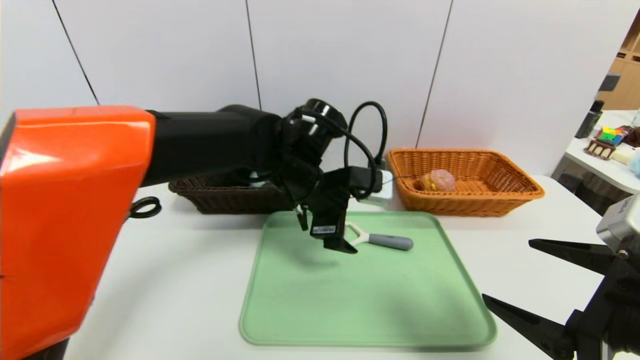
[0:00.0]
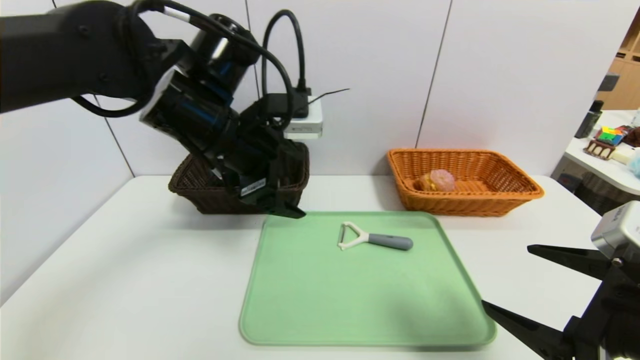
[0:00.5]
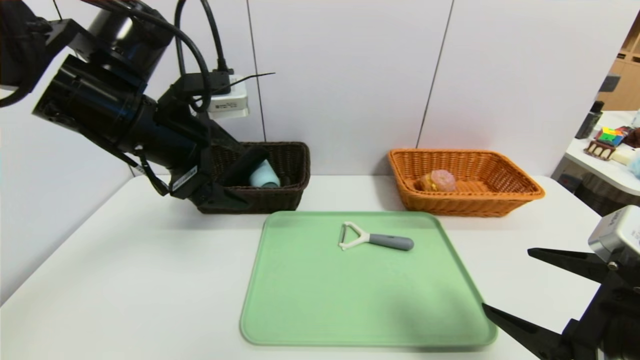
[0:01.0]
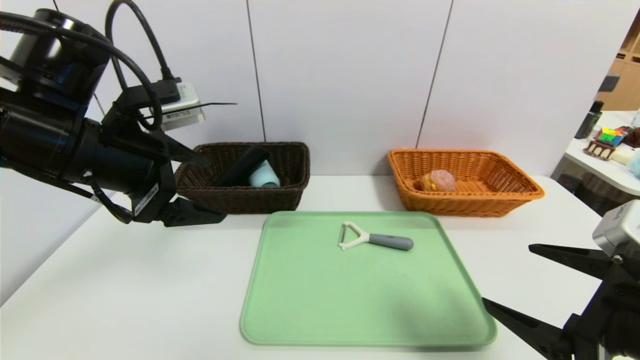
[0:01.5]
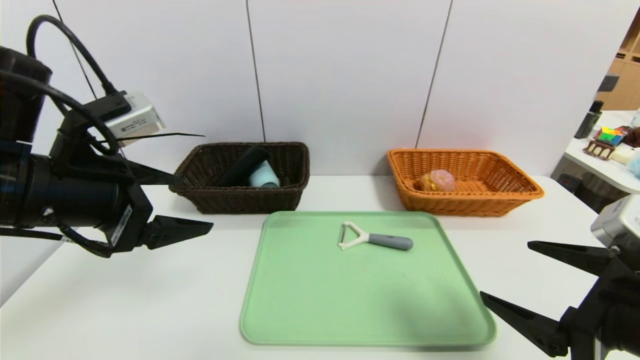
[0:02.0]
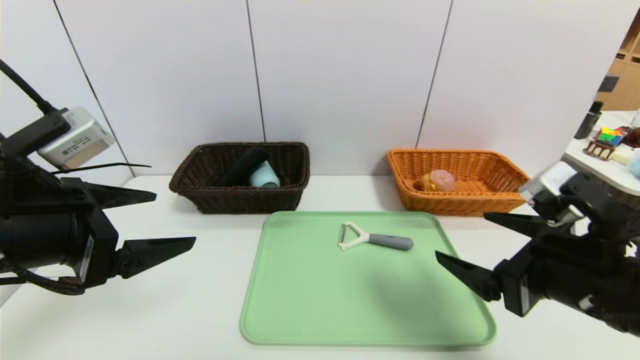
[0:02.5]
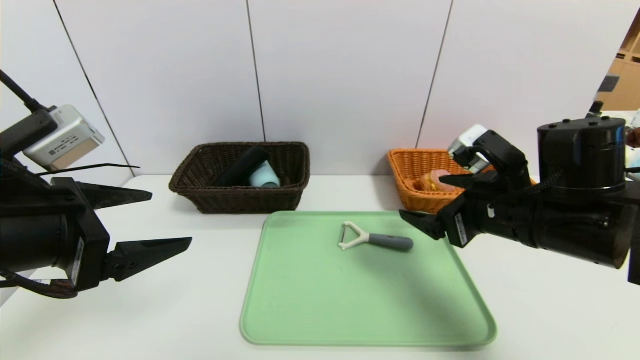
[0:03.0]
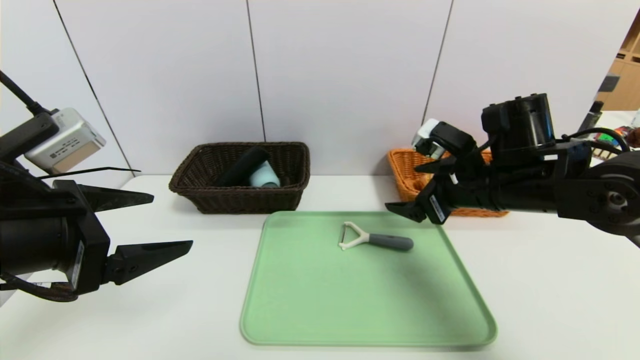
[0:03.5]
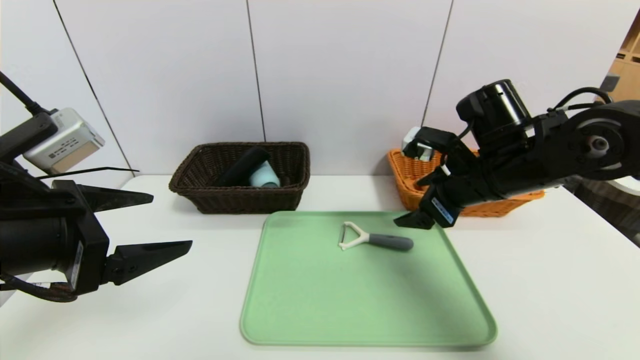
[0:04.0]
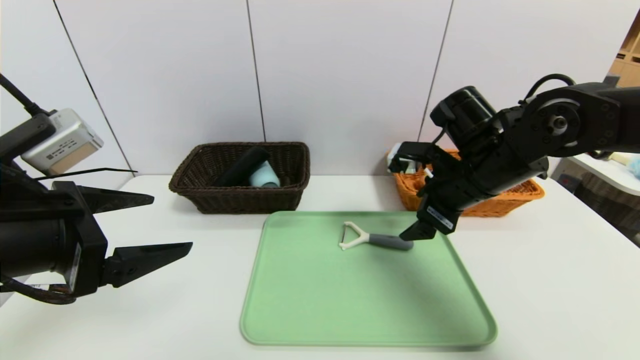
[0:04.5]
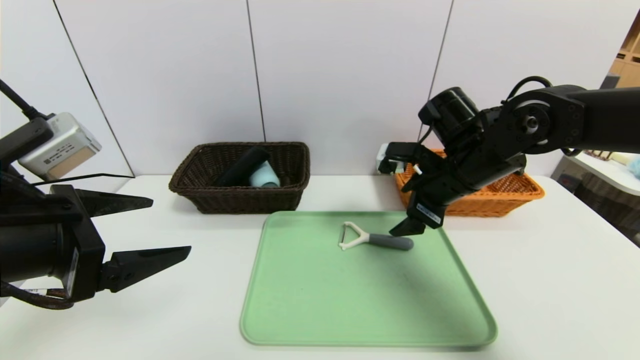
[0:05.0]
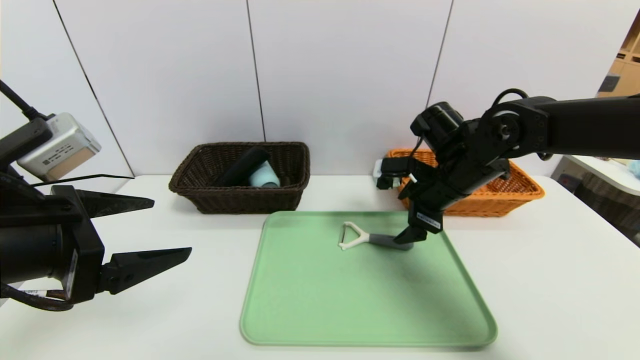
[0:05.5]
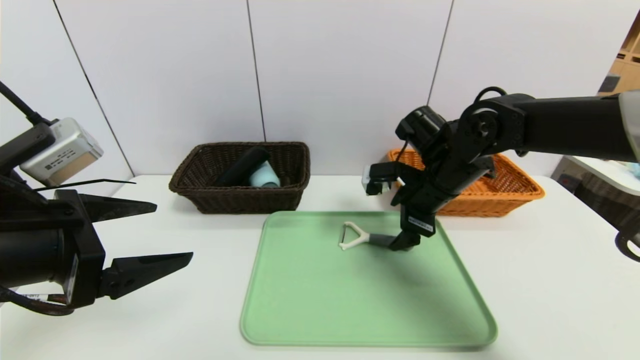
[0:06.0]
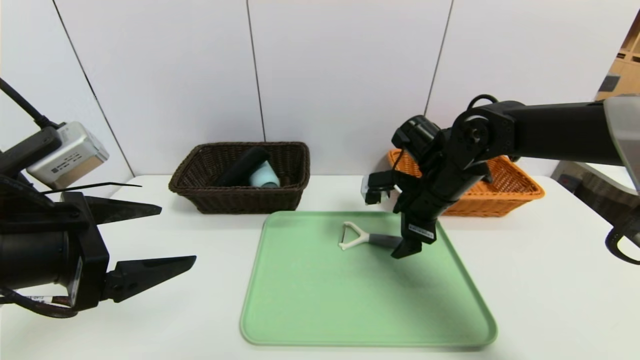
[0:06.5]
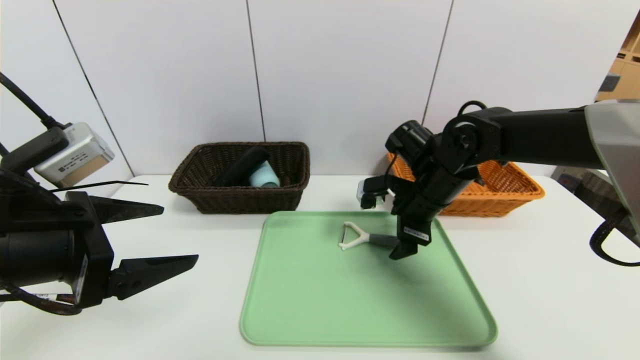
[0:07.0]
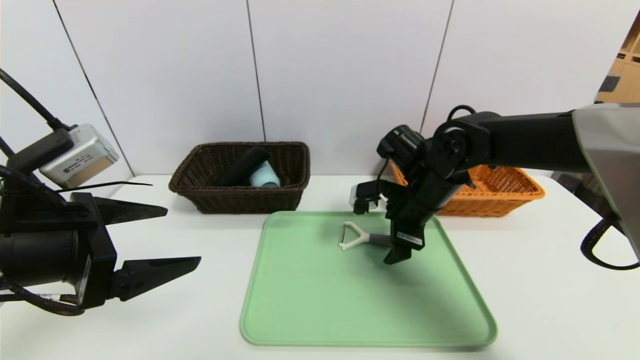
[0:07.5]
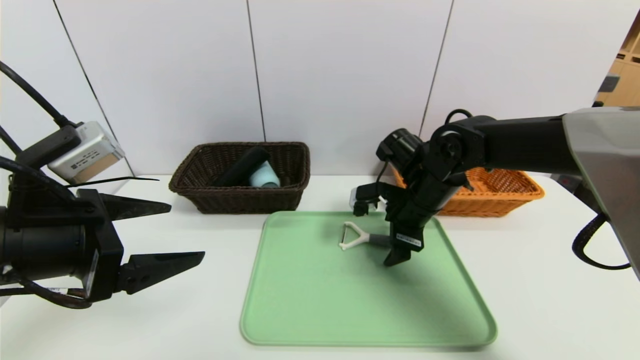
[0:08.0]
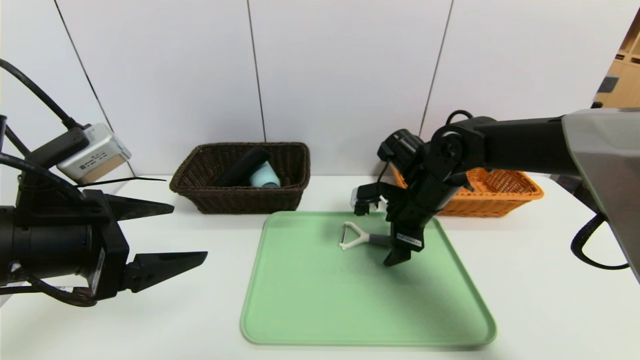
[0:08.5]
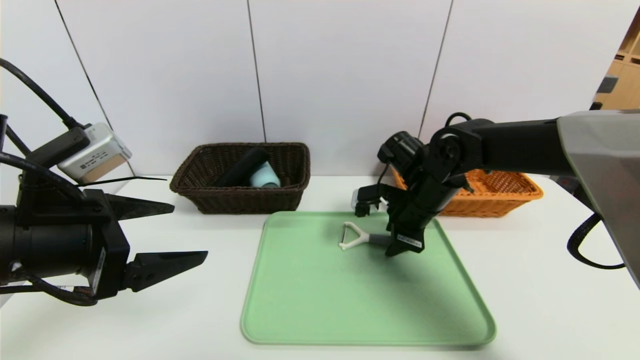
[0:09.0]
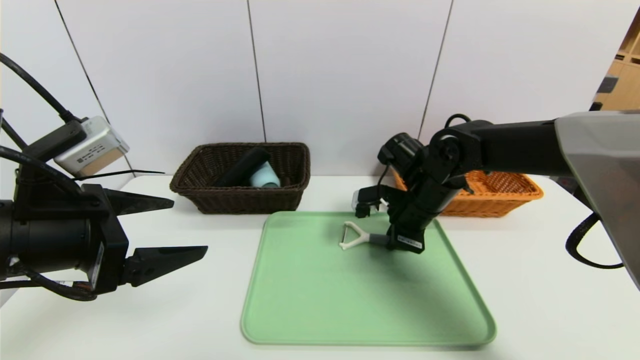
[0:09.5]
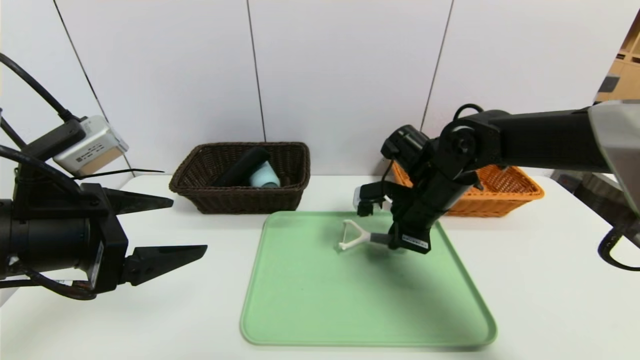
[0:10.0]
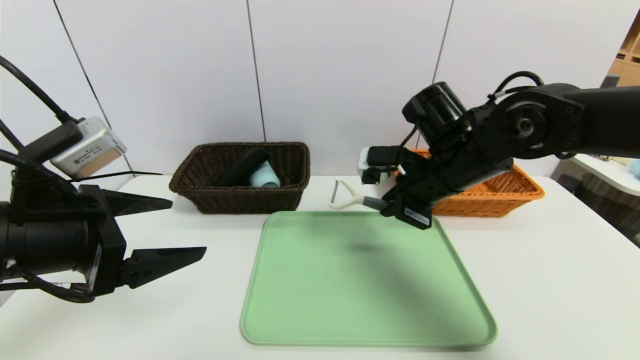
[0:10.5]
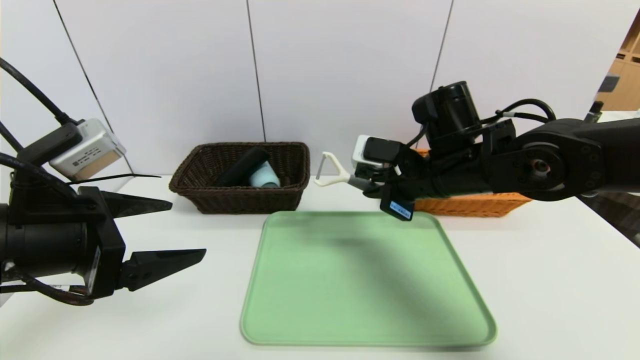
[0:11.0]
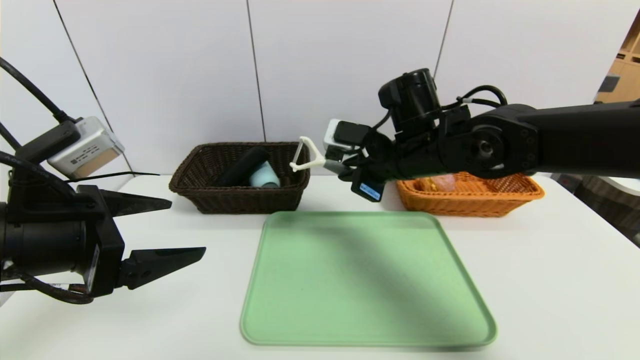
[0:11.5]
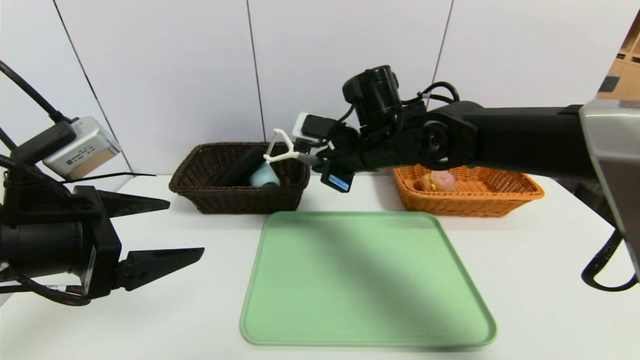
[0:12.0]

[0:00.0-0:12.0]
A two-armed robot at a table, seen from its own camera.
Task of the whole recording: place the food in the right basket with the right gripper, and place the non food items in the left basket with the left gripper.
0:00.0 to 0:02.0: The left gripper heads to the left and backward, covering some 25 cm.
0:02.0 to 0:04.0: The right gripper goes about 20 cm forward.
0:04.0 to 0:06.0: The right gripper ends up some 5 cm from where it was.
0:06.0 to 0:08.0: The grippers stay close to where they were, moving slightly.
0:08.0 to 0:10.0: The right gripper closes.
0:10.0 to 0:12.0: The right gripper travels to the left and upward by some 10 cm.

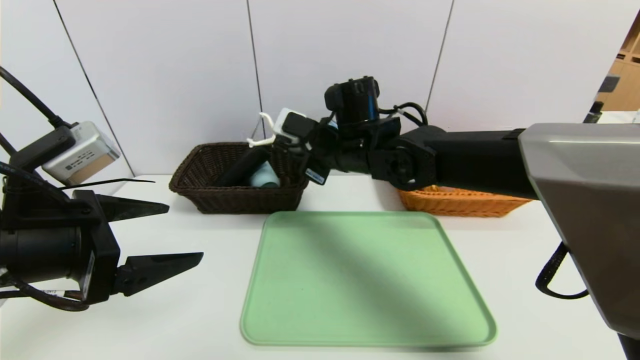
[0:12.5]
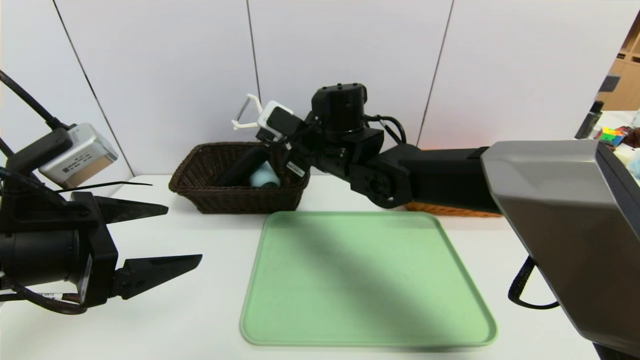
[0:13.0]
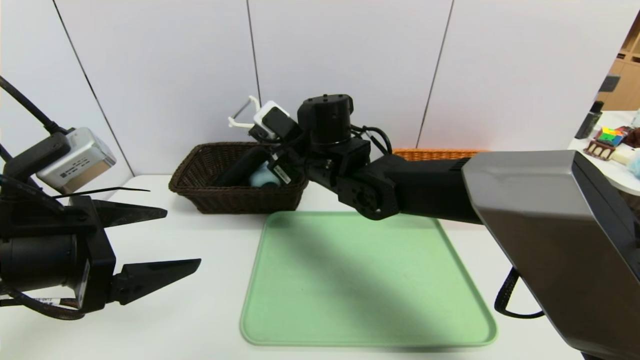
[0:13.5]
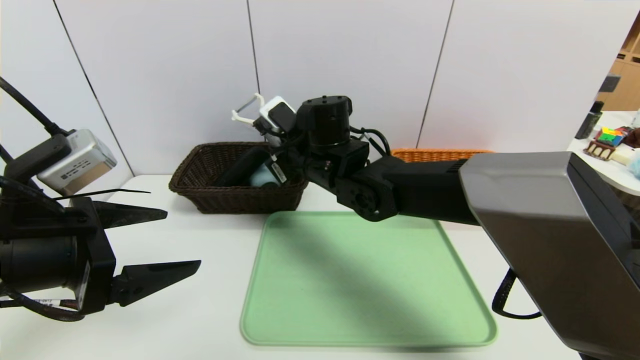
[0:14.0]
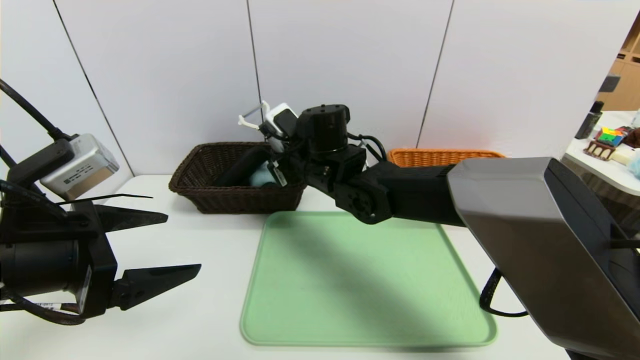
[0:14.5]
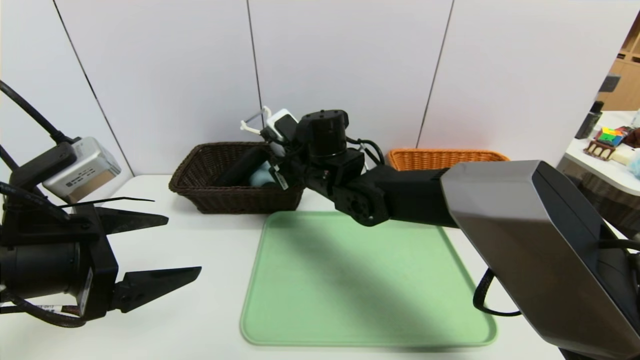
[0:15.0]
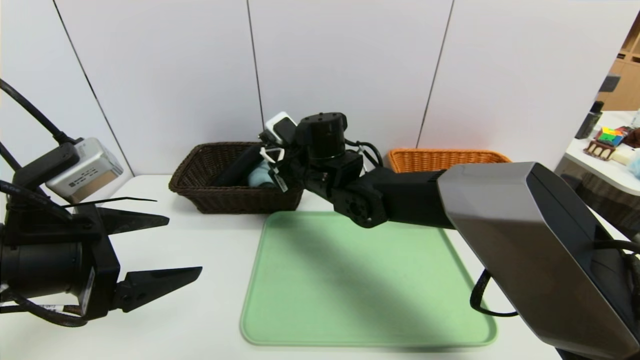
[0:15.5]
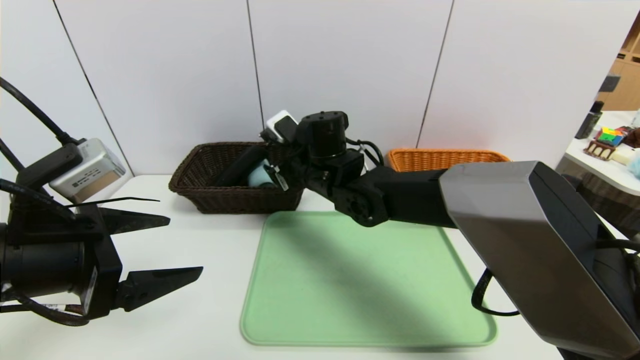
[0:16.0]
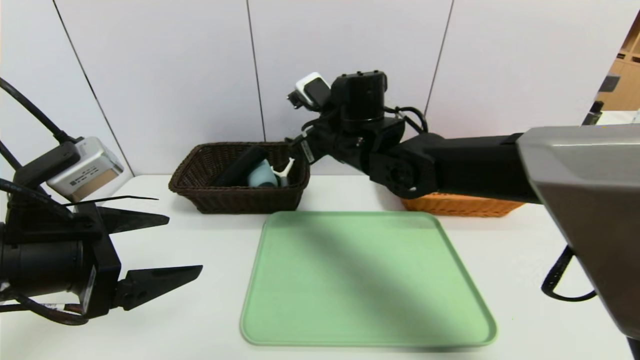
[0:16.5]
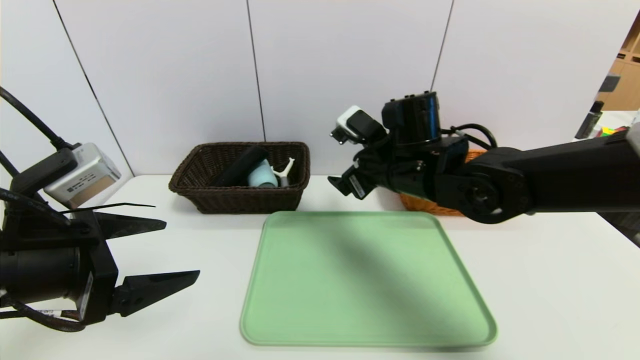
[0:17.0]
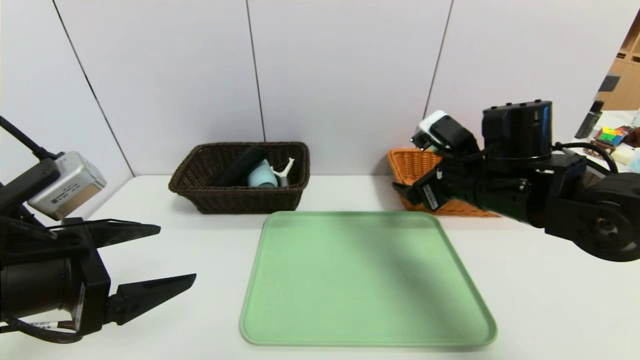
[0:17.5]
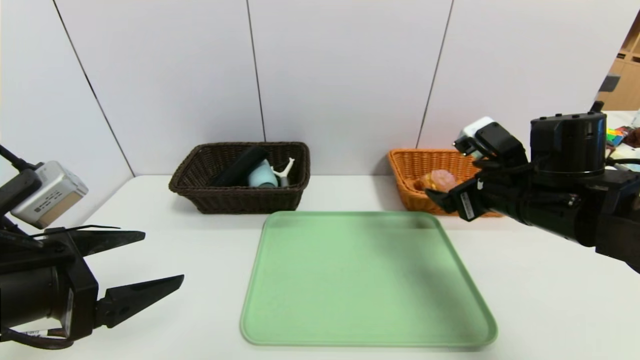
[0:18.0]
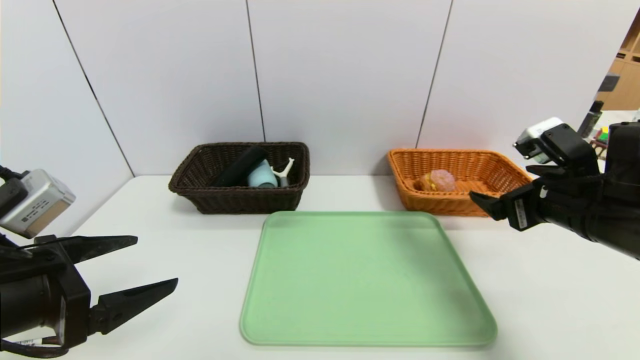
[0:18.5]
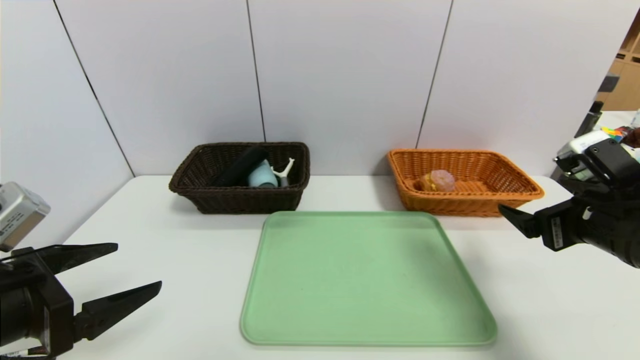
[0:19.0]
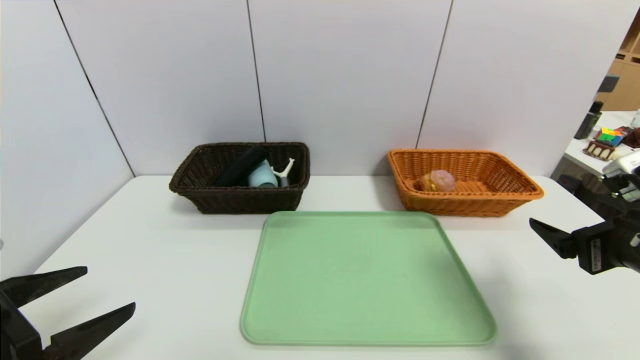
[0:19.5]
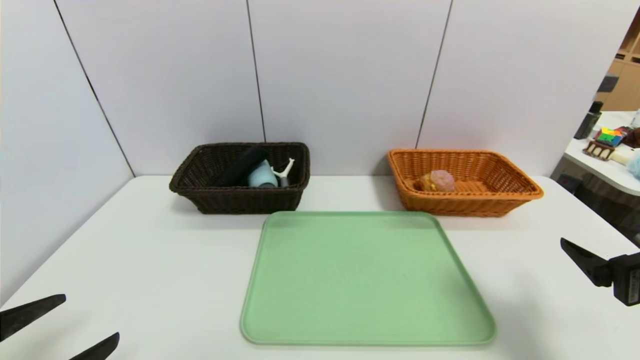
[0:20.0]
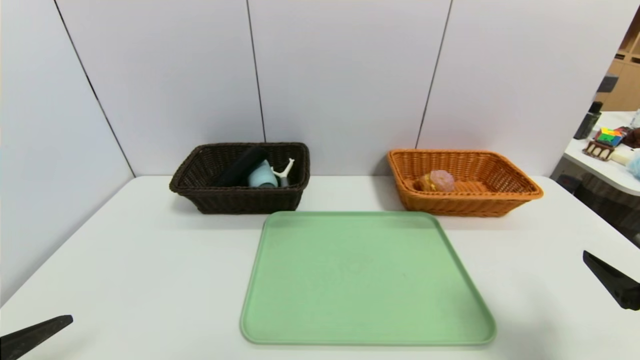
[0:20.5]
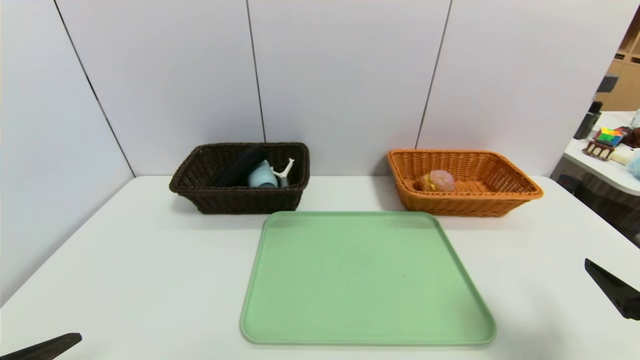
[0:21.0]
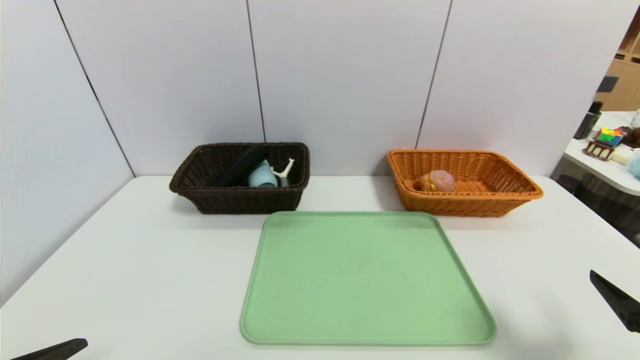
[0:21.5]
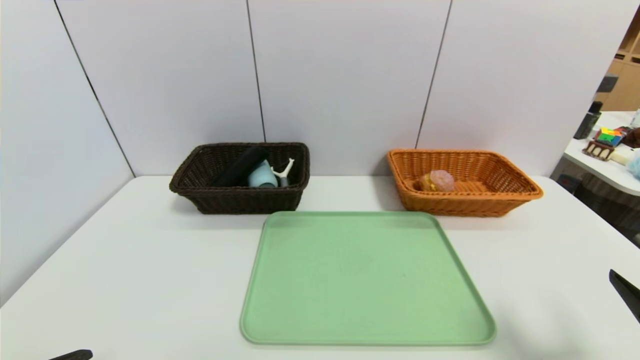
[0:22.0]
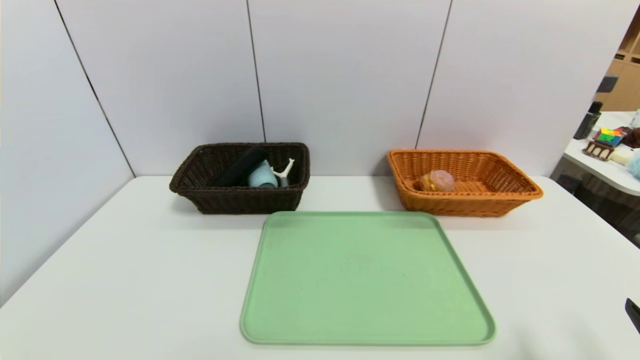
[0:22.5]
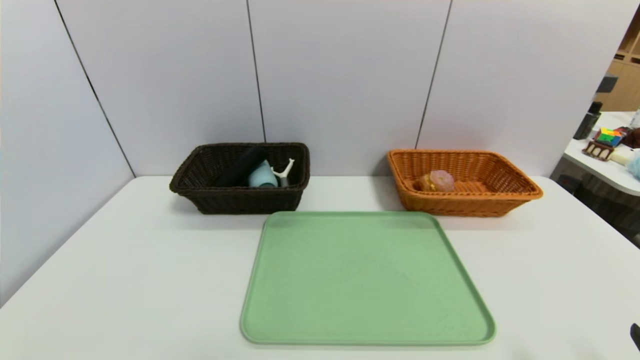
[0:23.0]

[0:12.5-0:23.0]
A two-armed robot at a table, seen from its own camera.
Task of the whole recording: place the food in the right basket with the right gripper, and place the non food items in the left basket with the left gripper.
0:12.5 to 0:14.5: The right gripper shifts by some 5 cm.
0:14.5 to 0:16.5: The right gripper moves about 5 cm, and opens its fingers.
0:16.5 to 0:19.0: The left gripper ends up about 5 cm from where it was, while the right gripper moves to the right and backward, some 30 cm.
0:19.0 to 0:21.0: The right gripper goes roughly 10 cm backward, while the left gripper shifts roughly 10 cm backward and downward.
0:21.0 to 0:23.0: The right gripper shifts some 5 cm backward.
